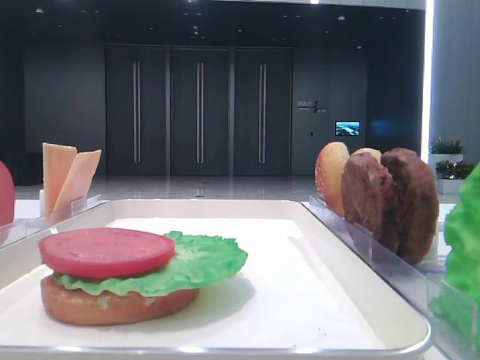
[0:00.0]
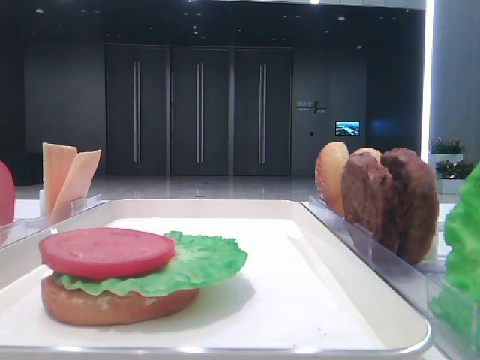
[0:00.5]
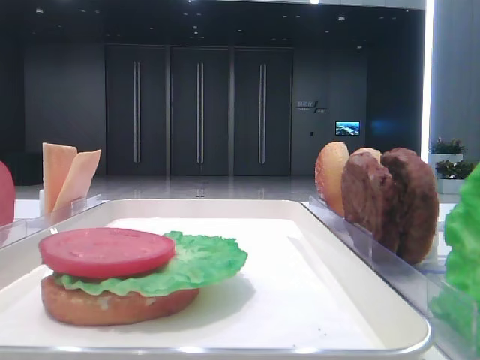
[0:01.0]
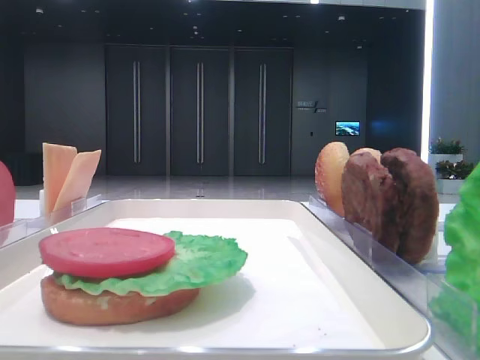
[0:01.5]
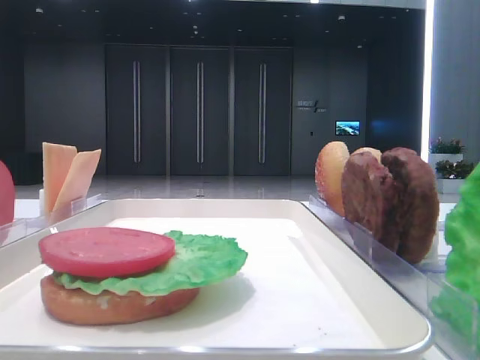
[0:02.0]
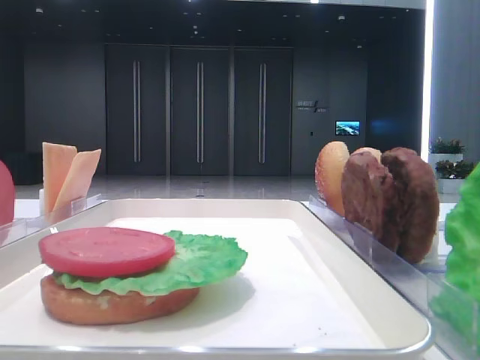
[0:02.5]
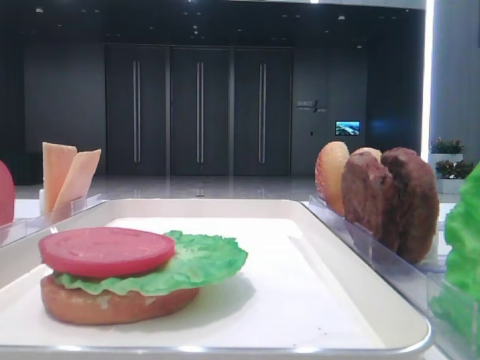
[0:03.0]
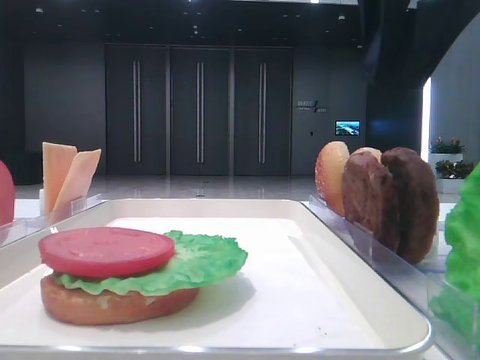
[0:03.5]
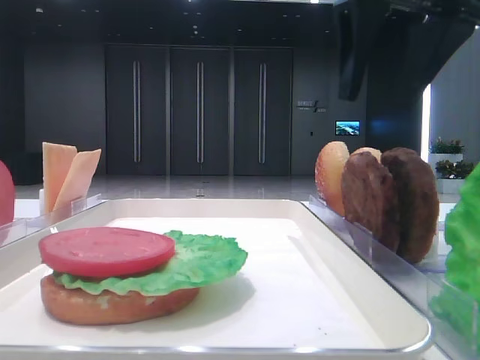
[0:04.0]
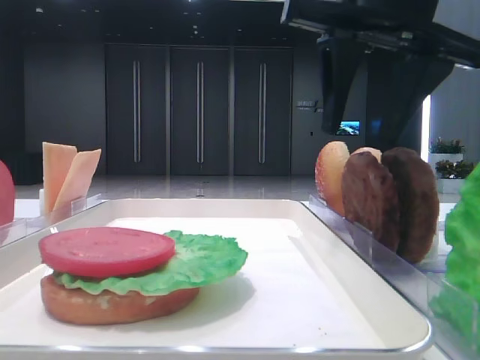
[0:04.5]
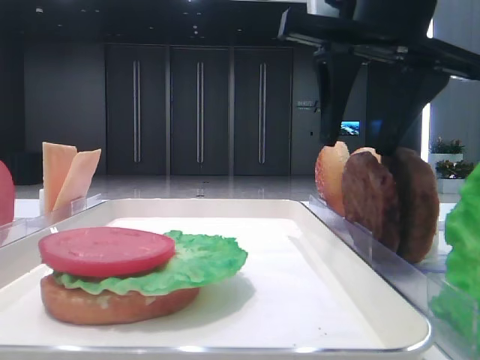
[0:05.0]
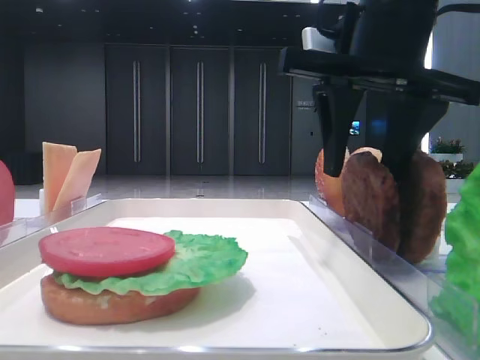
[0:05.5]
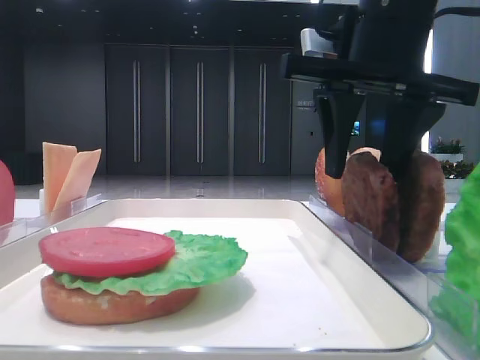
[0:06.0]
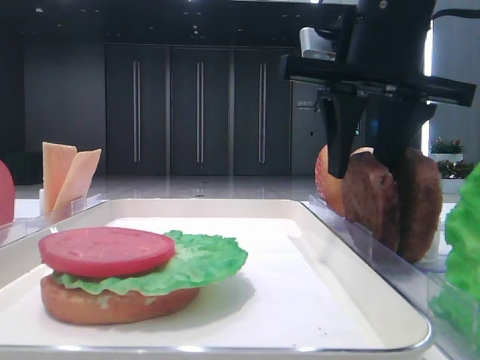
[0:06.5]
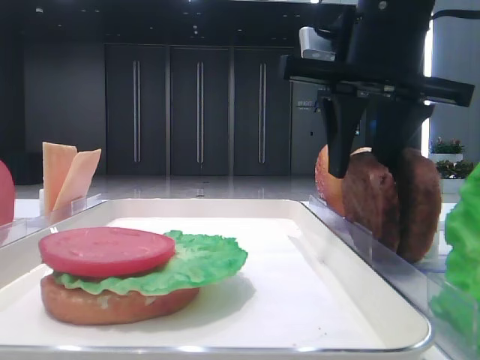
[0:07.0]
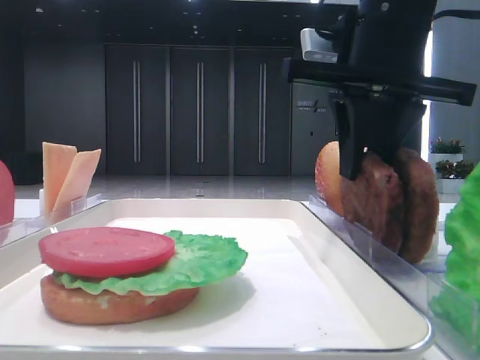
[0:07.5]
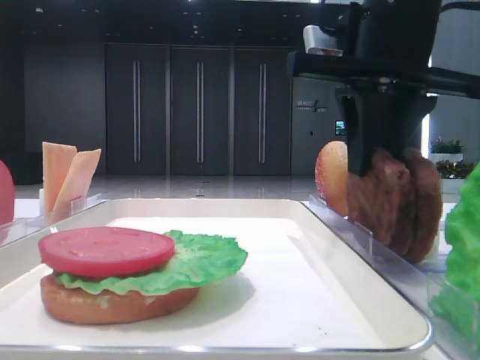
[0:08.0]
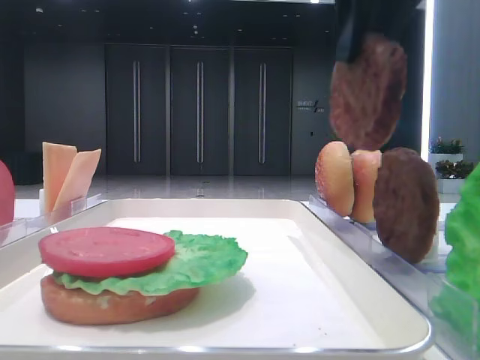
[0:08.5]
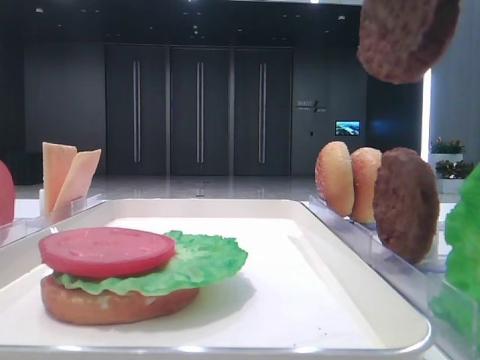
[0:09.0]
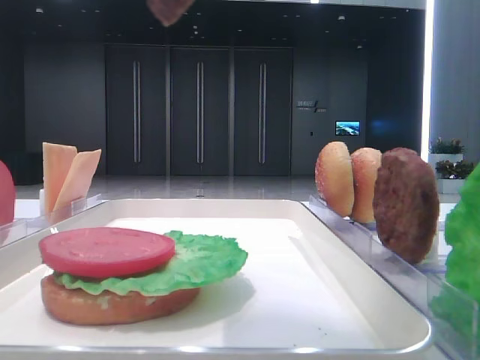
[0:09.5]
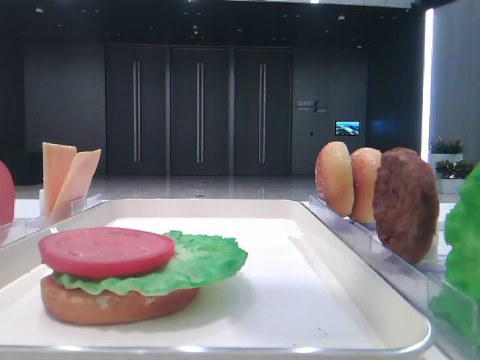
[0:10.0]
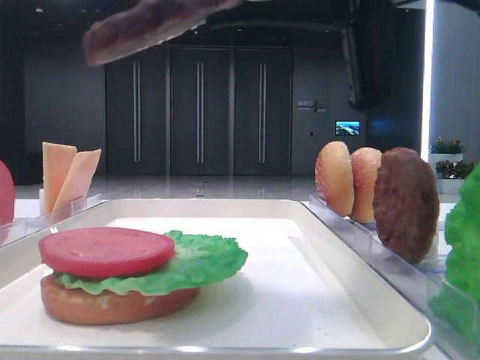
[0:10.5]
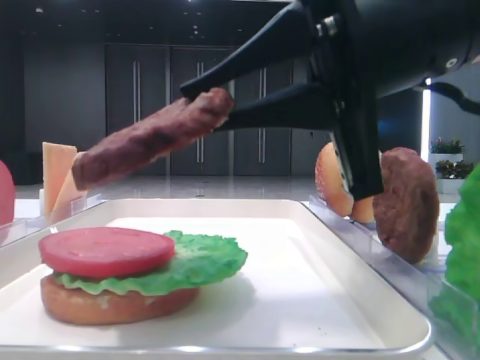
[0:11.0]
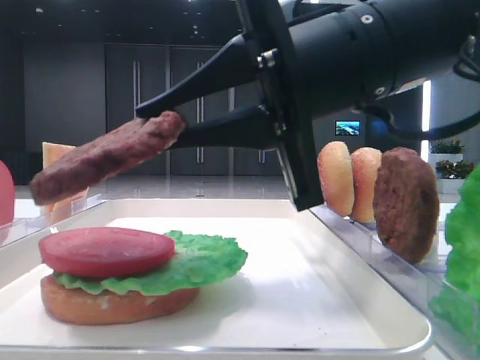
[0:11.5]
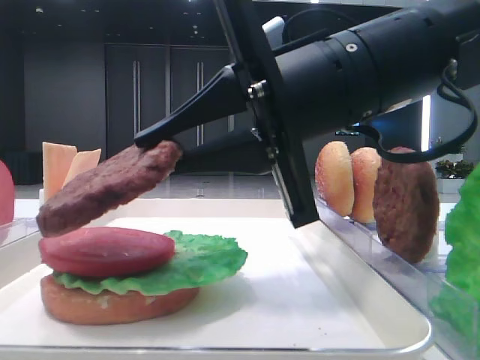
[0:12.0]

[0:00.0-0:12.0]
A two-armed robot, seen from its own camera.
Step, 0:00.0 to 0:07.5: Grab the patty with the right hand.
0:02.0 to 0:04.0: The right gripper shifts about 20 cm to the left, forward and downward, and opens its fingers.
0:04.0 to 0:06.0: The right gripper heads downward, covering roughly 5 cm.
0:06.0 to 0:08.0: The right gripper closes up.
0:08.0 to 0:10.0: The right gripper heads backward and upward, covering some 10 cm.
0:10.0 to 0:12.0: The right gripper is displaced downward, to the left and forward by roughly 15 cm.

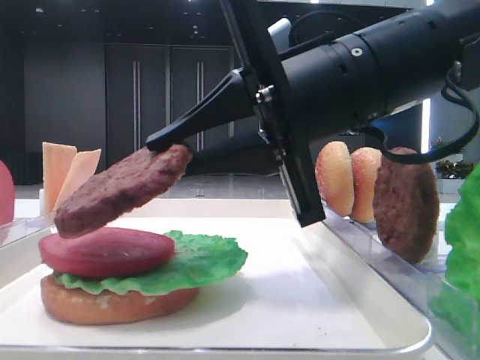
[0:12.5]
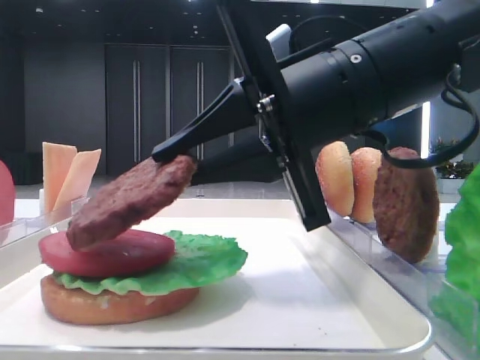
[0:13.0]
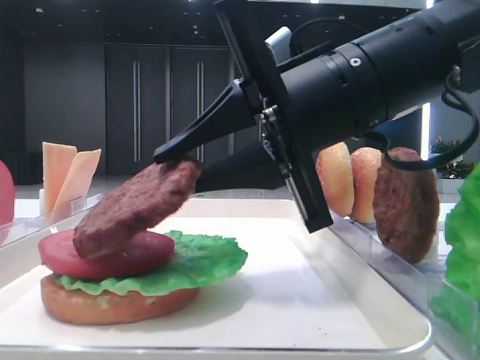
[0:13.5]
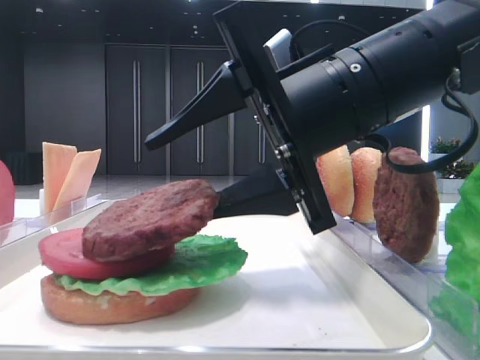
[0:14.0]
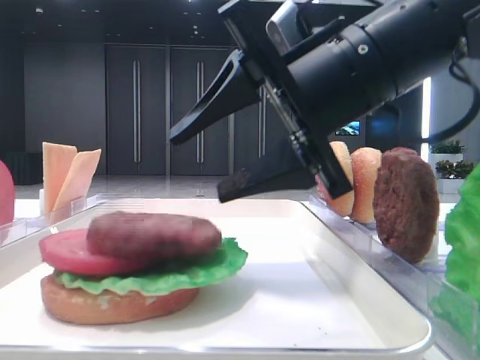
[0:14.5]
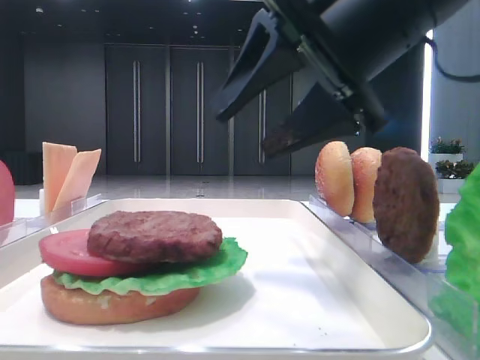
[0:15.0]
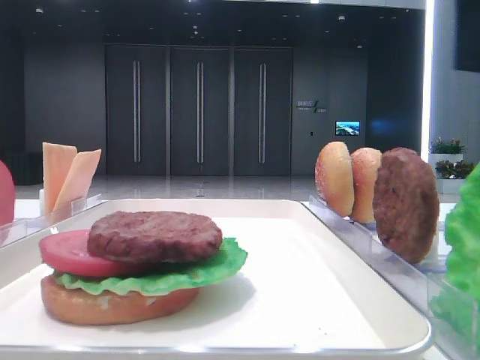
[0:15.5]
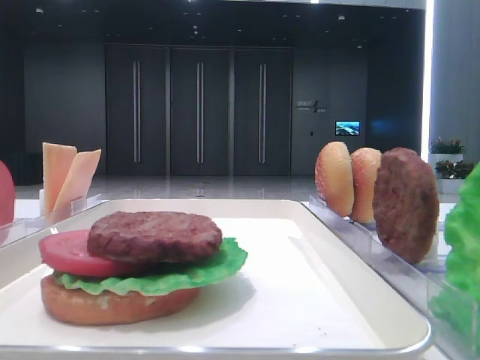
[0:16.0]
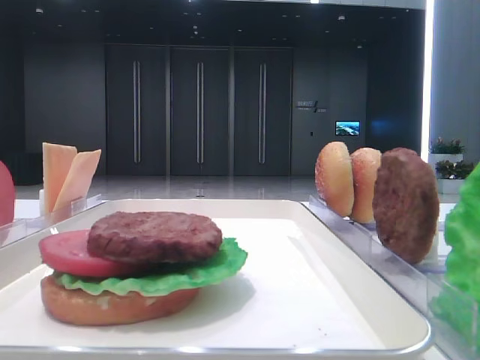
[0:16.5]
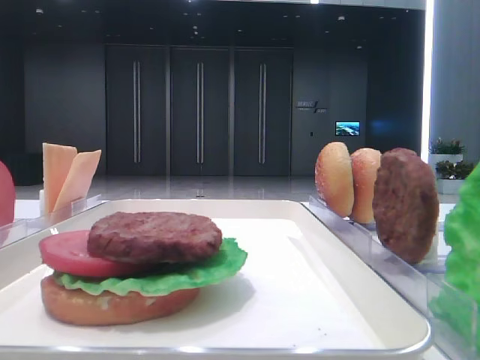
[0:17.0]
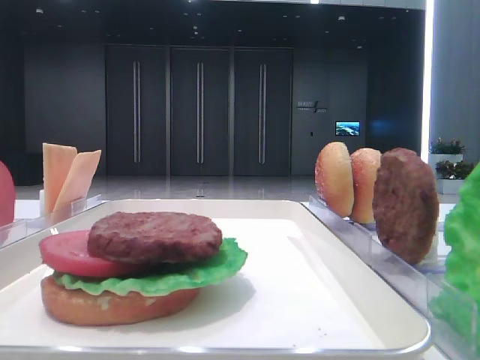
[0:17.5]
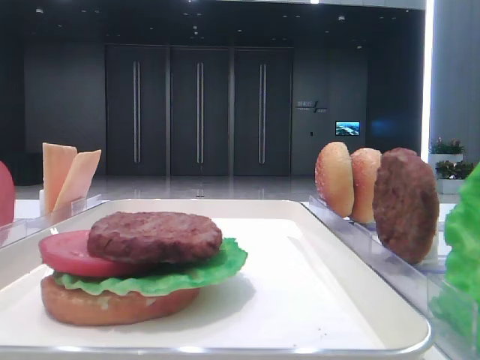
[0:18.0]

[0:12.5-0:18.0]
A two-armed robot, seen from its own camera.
0:12.5 to 0:14.5: The right gripper opens its fingers.
0:14.5 to 0:16.0: The right gripper moves to the right and upward, roughly 25 cm.

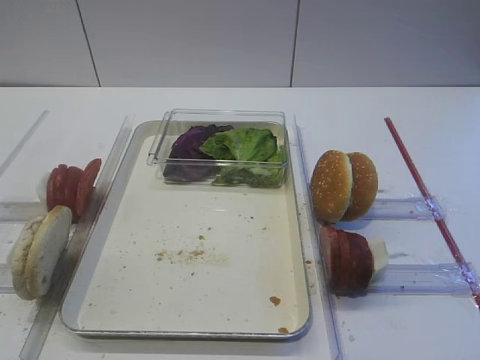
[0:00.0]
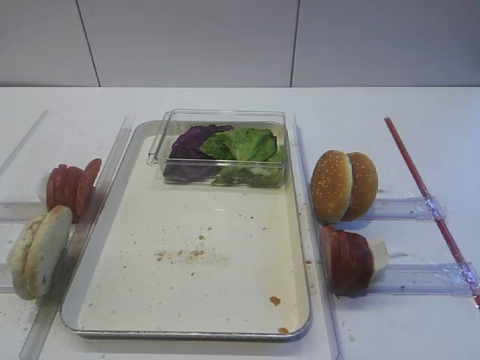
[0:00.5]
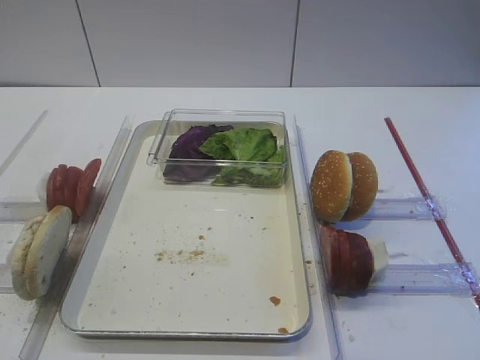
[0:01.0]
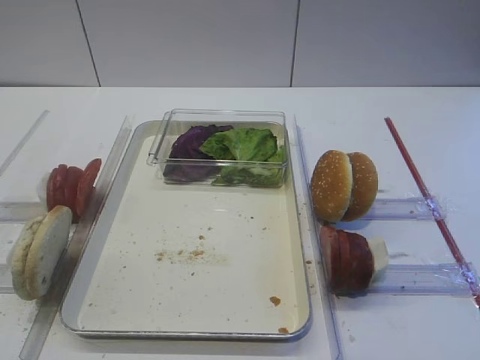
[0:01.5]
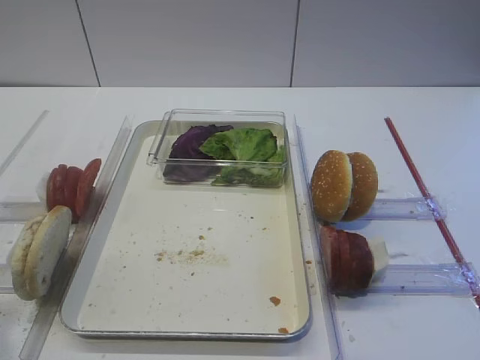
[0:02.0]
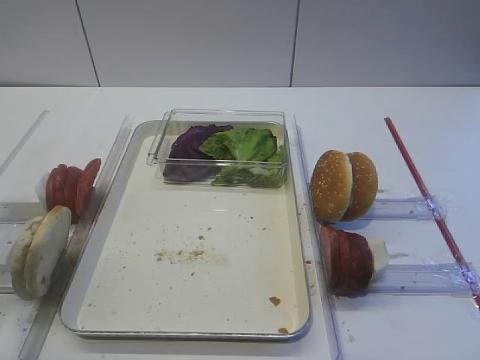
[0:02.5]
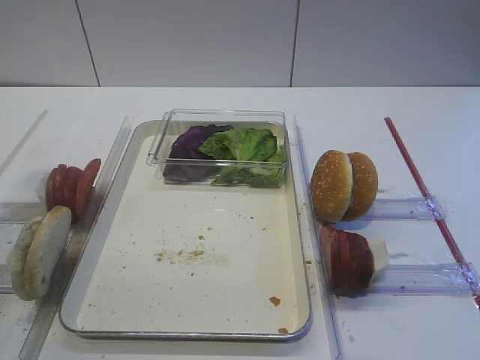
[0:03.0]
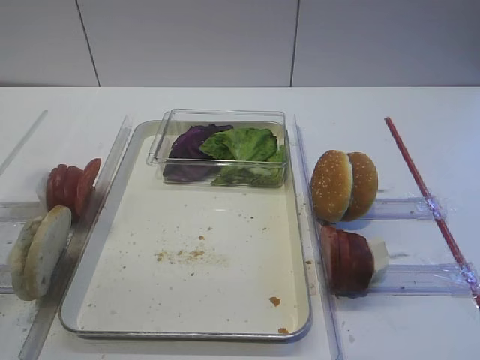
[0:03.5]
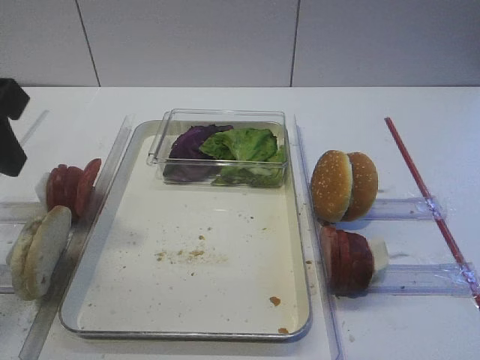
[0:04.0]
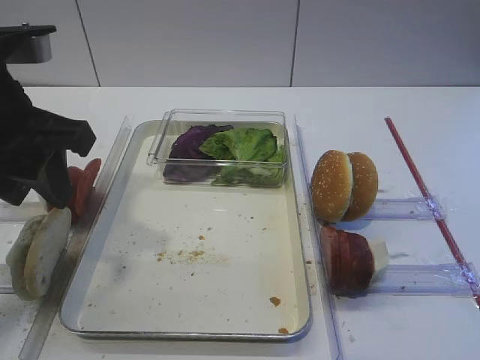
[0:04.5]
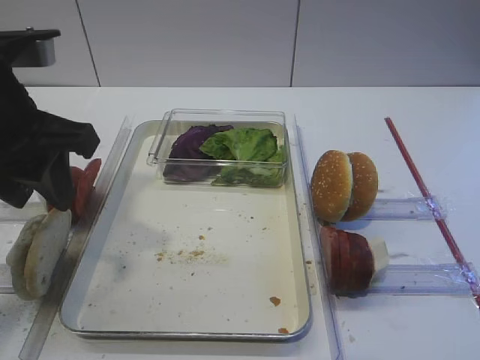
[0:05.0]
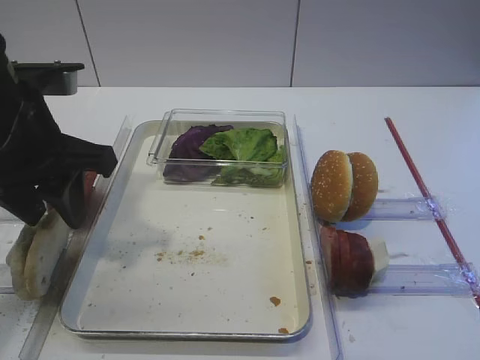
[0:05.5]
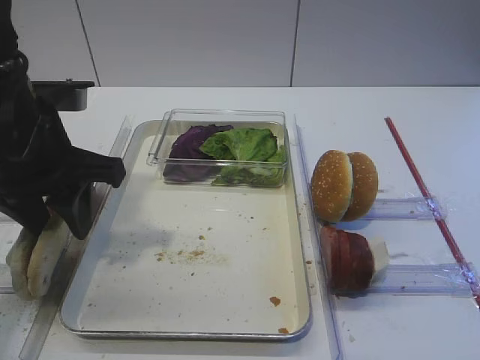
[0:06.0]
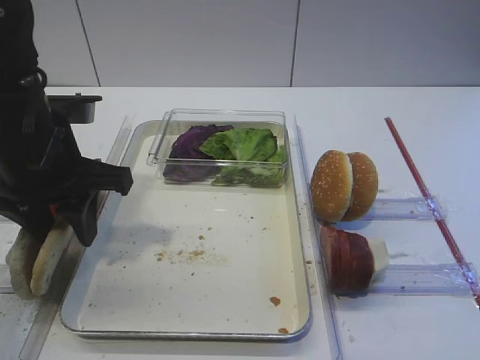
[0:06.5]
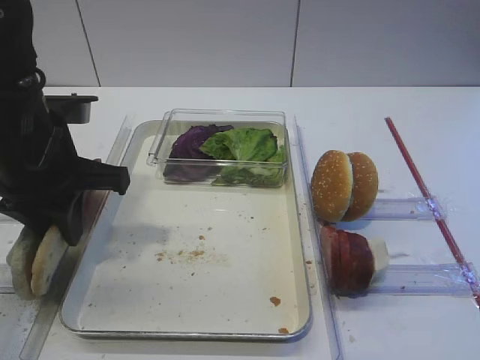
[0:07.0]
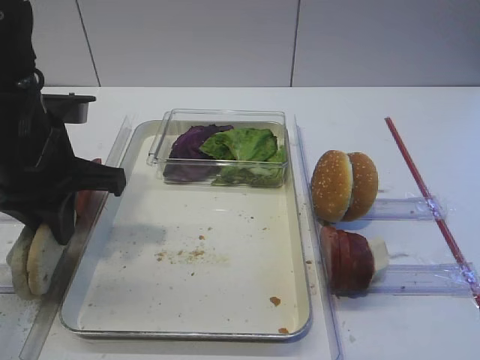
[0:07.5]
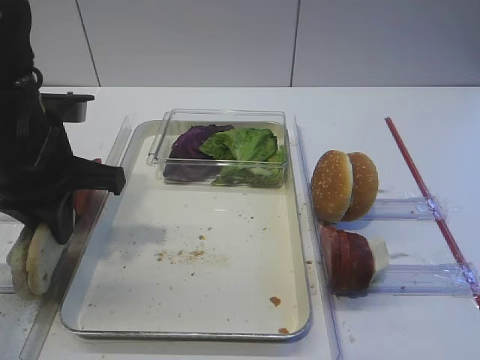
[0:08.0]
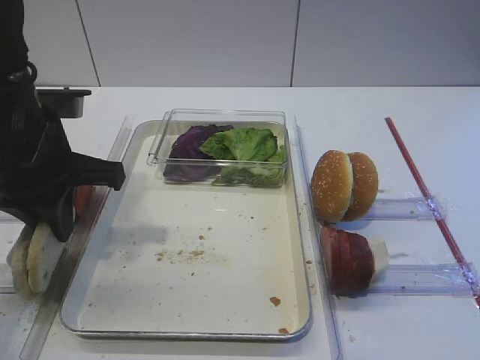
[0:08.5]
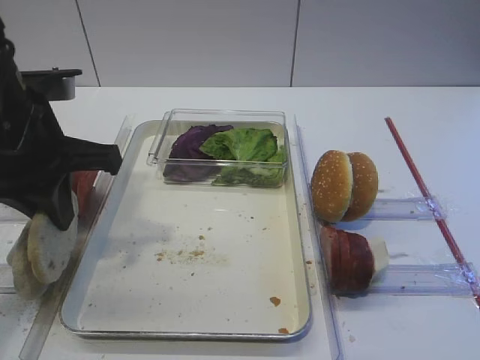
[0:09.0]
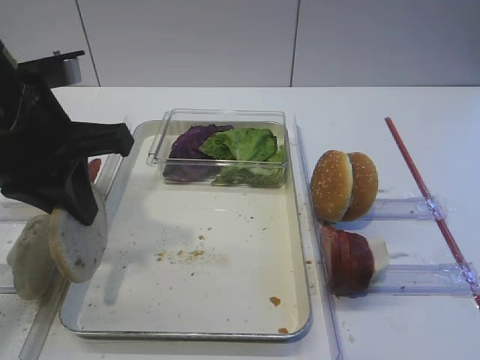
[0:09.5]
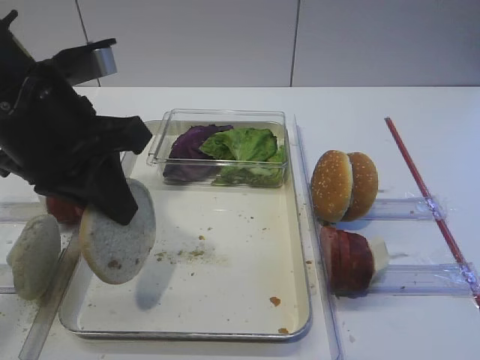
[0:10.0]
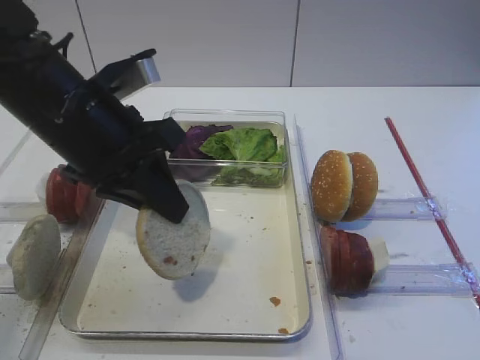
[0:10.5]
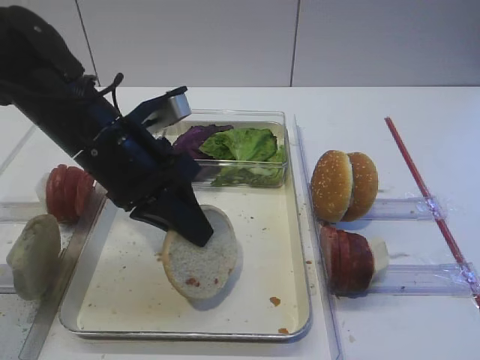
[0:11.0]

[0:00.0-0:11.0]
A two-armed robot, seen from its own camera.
Step, 0:00.0 to 0:09.0: Pick up the bread slice with the left gripper.
0:02.0 to 0:03.5: The left gripper travels forward by some 15 cm.
0:03.5 to 0:05.5: The left gripper travels to the right and downward by about 10 cm.
0:05.5 to 0:07.5: The left gripper closes up.
0:07.5 to 0:09.0: There are only small adjustments of the grippers.
0:09.0 to 0:11.0: The left gripper goes approximately 5 cm to the right.
